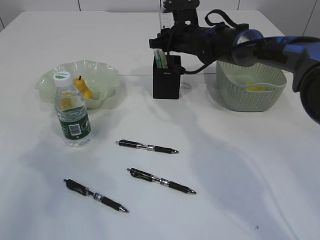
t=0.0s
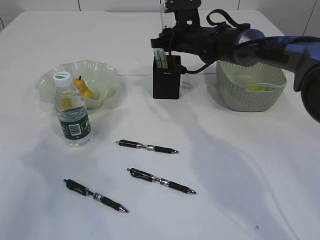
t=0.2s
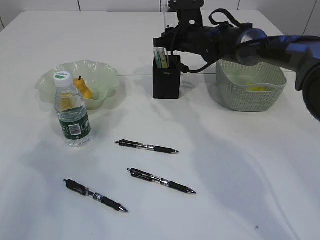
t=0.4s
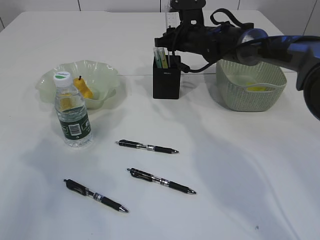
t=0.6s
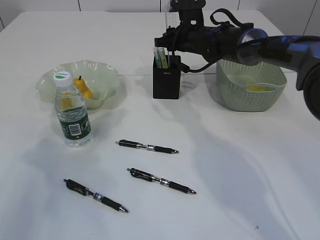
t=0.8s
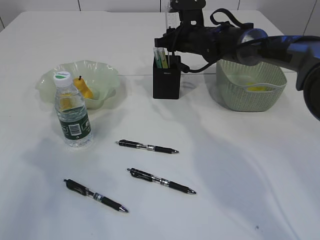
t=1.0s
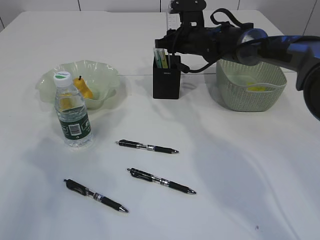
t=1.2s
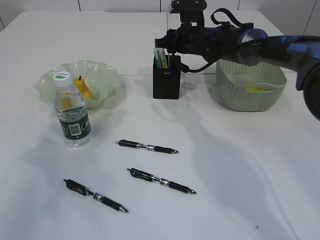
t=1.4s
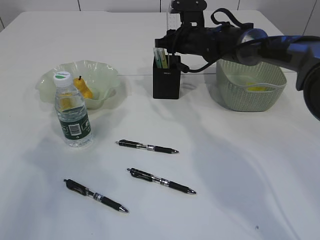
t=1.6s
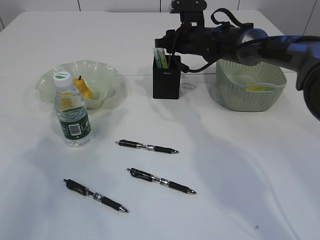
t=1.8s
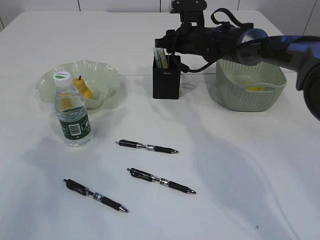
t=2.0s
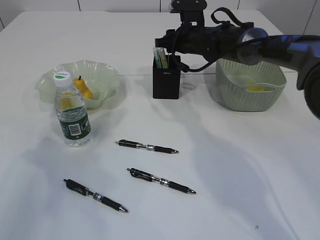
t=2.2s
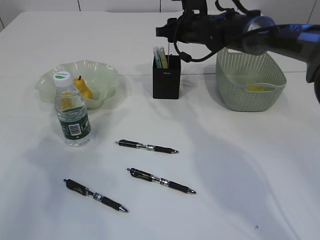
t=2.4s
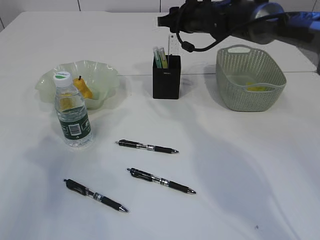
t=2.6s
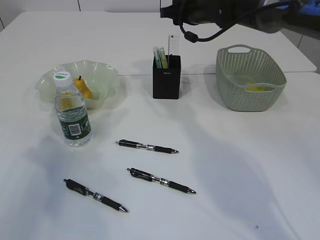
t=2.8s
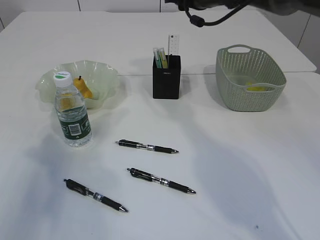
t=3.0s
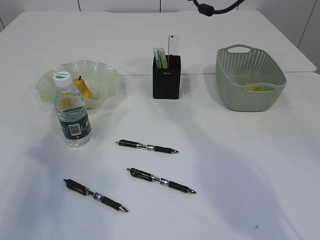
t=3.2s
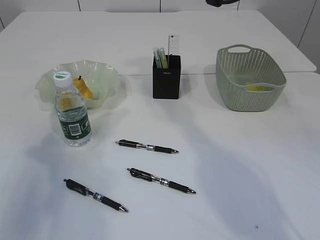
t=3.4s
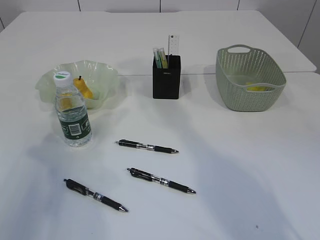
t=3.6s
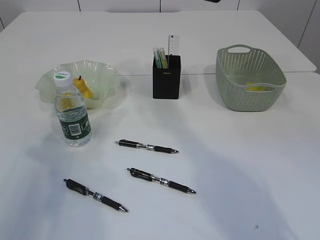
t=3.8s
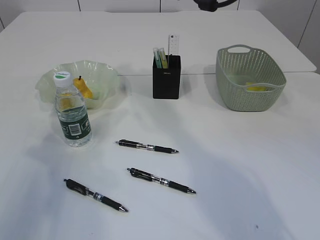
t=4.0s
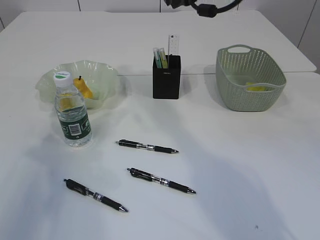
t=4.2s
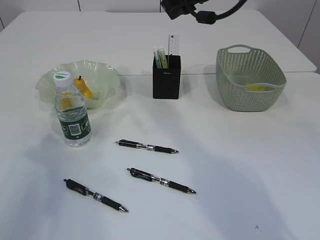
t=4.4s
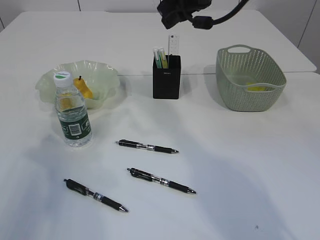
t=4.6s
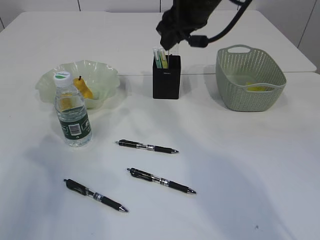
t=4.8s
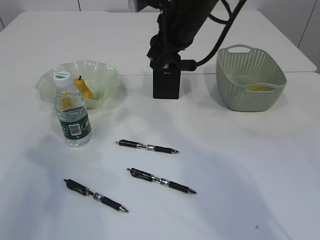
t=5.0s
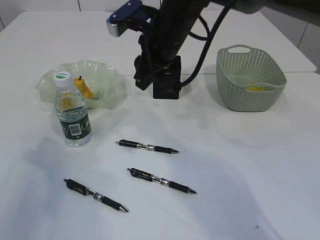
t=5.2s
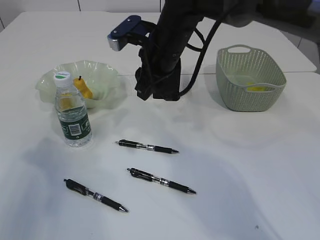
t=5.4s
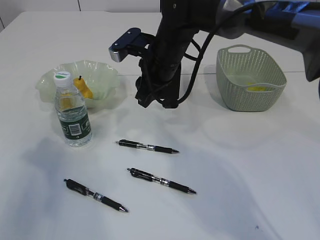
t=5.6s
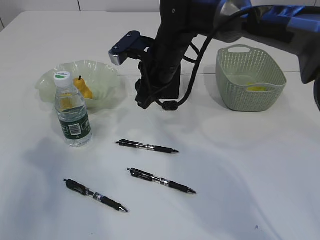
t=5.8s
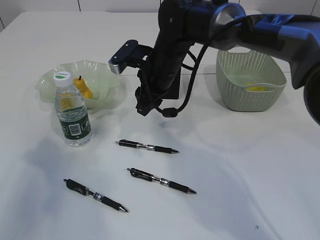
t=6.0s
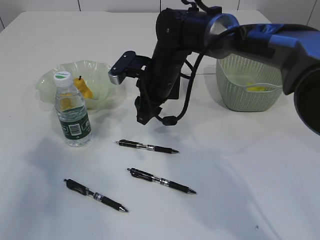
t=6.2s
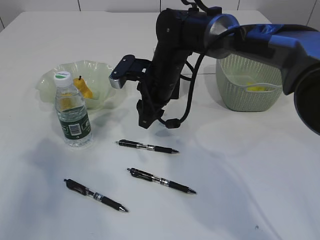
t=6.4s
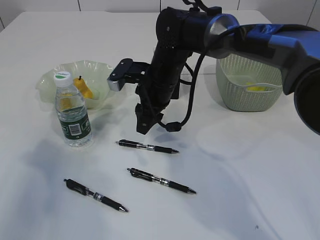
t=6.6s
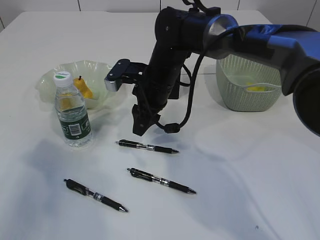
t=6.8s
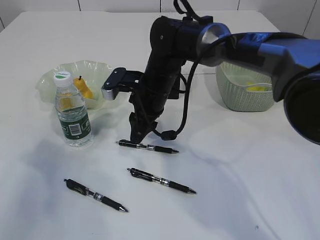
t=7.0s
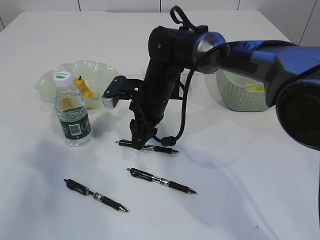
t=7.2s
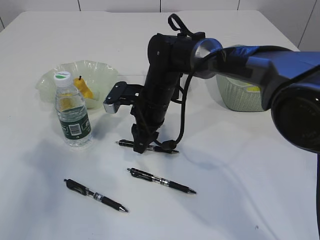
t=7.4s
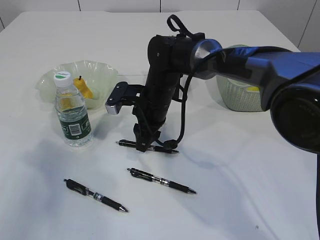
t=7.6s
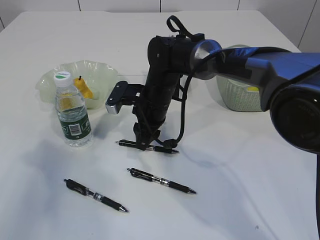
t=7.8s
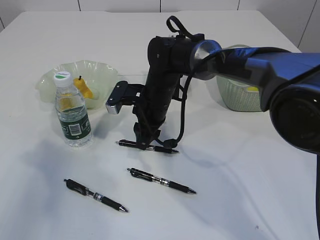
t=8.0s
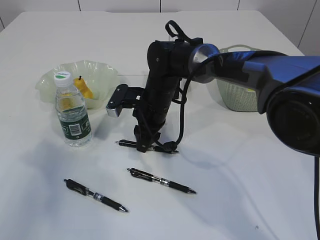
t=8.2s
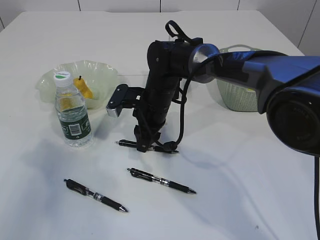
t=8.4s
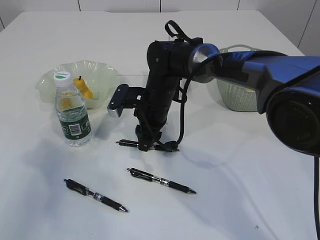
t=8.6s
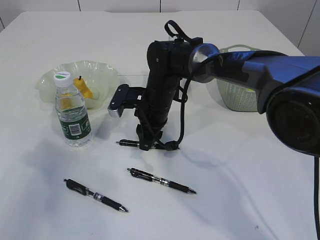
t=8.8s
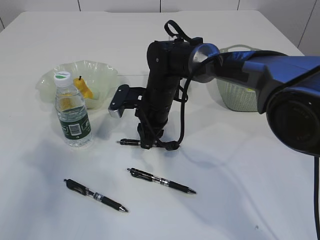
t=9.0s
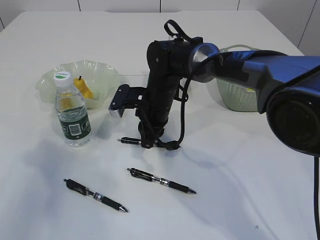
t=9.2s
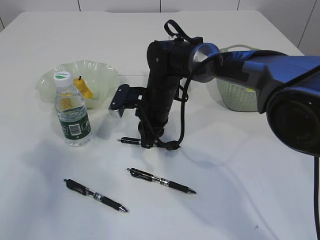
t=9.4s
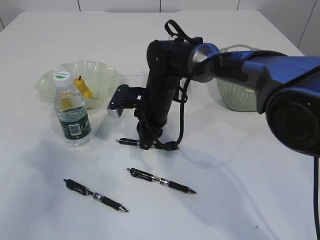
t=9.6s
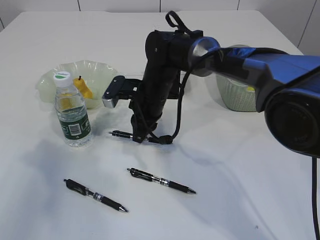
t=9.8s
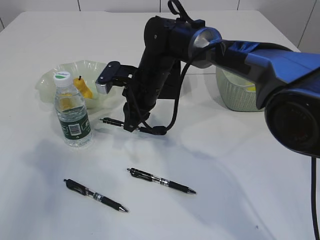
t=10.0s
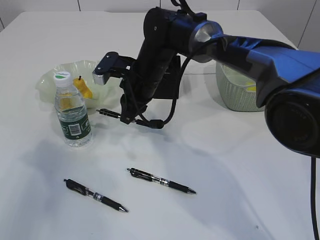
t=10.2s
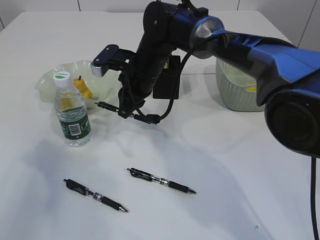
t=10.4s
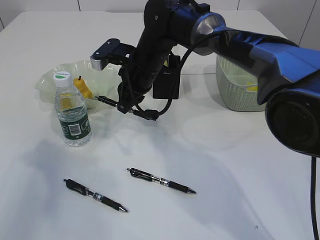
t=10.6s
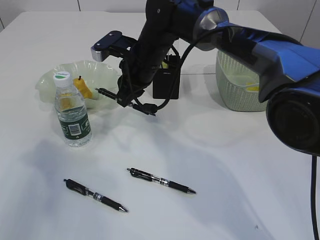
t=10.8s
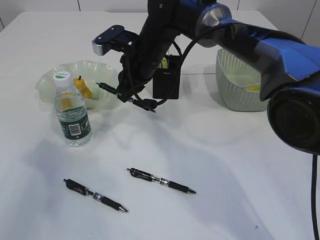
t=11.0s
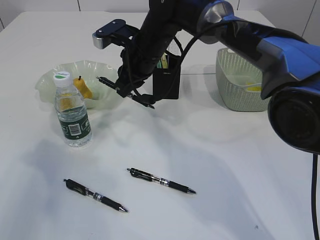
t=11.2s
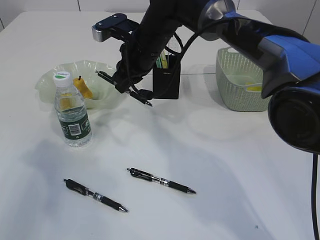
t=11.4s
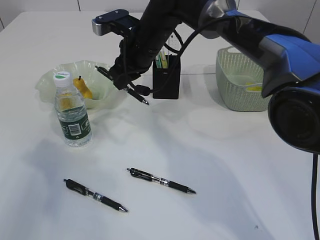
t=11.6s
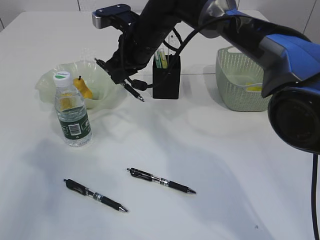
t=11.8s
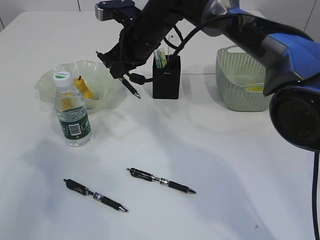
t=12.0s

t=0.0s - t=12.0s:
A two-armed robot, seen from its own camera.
Step, t=0.0s - t=2.6s: Place the ruler into the pen holder.
Step, t=2.8s - t=10.0s: Pick up the pen with right arm.
t=0.0s - t=1.6s: The grippers move only a little.
t=1.6s - t=3.0s: The right gripper goes roughly 10 cm upward.
t=3.0s - t=4.4s: The right gripper goes some 10 cm backward and upward.
t=4.4s - t=6.0s: The right gripper goes about 15 cm downward and to the left.
t=6.0s - t=7.6s: The right gripper heads downward, covering roughly 5 cm.
t=7.6s - t=9.0s: Neither gripper changes place.
t=9.0s - t=10.4s: The right gripper goes approximately 5 cm upward.
t=10.4s - t=12.0s: The right gripper heads upward, covering roughly 5 cm.

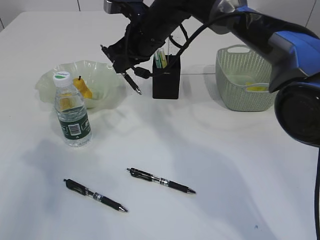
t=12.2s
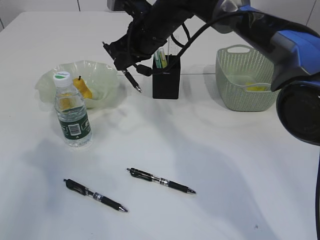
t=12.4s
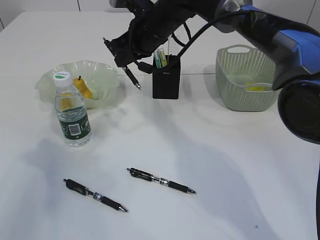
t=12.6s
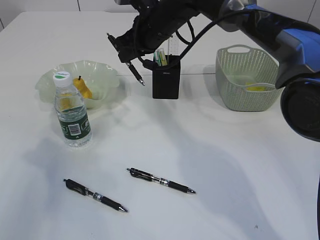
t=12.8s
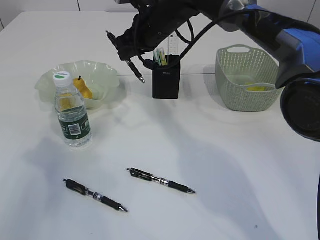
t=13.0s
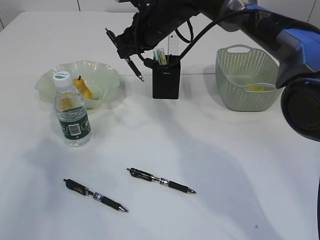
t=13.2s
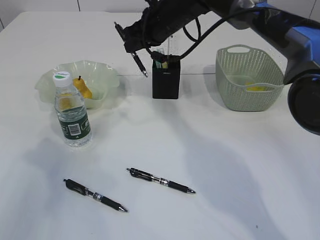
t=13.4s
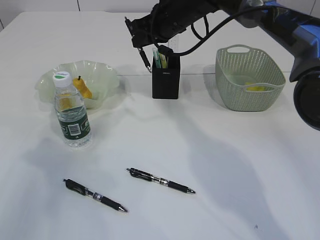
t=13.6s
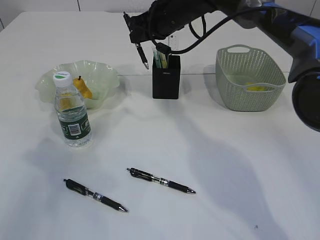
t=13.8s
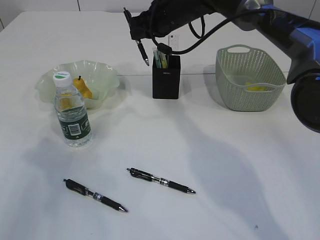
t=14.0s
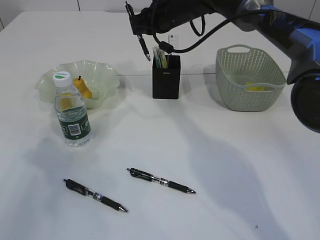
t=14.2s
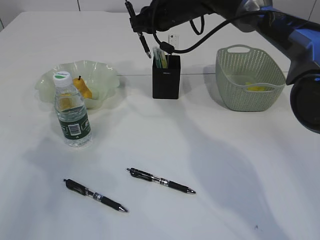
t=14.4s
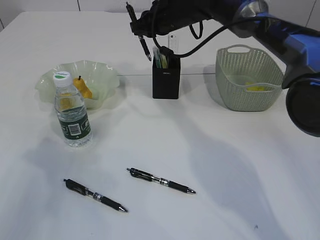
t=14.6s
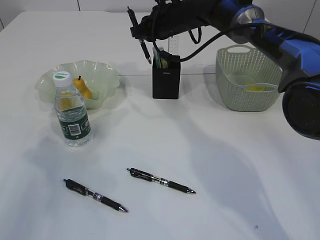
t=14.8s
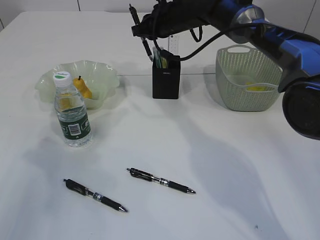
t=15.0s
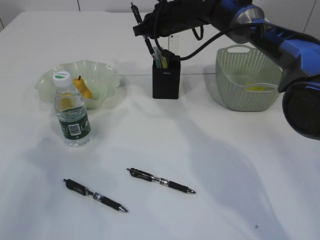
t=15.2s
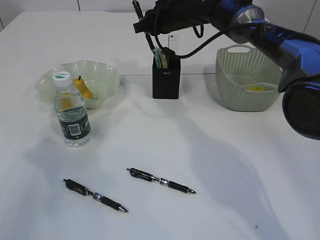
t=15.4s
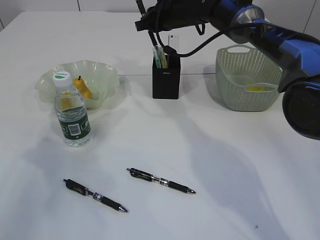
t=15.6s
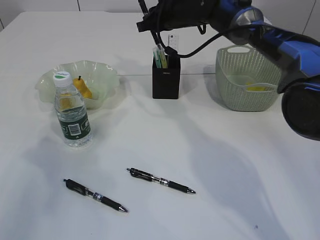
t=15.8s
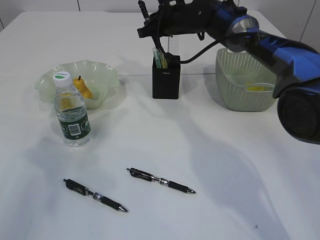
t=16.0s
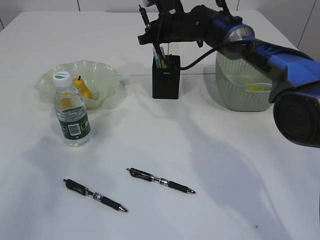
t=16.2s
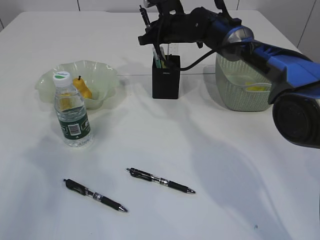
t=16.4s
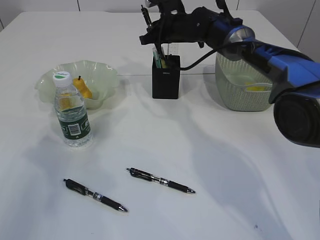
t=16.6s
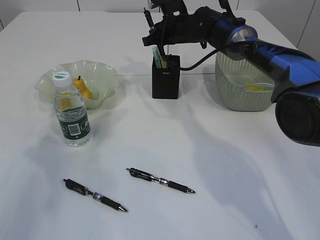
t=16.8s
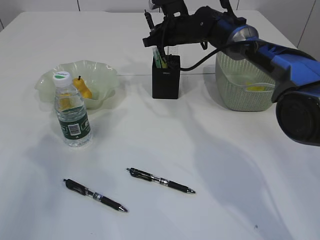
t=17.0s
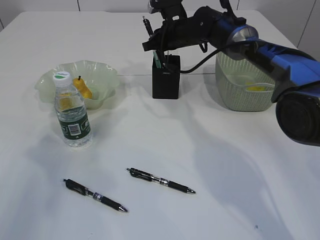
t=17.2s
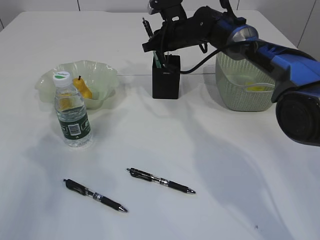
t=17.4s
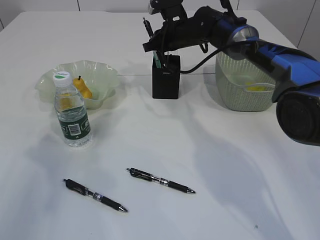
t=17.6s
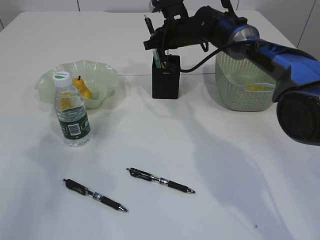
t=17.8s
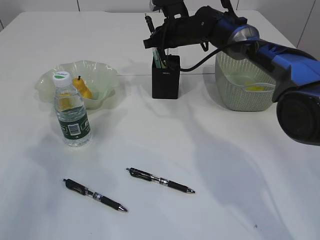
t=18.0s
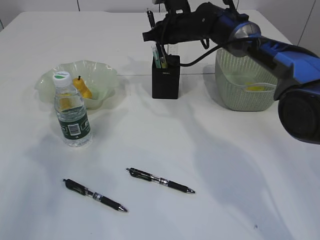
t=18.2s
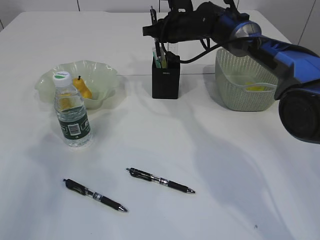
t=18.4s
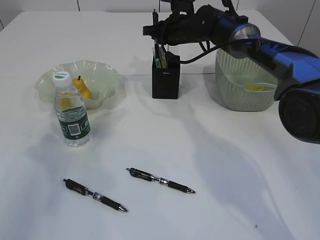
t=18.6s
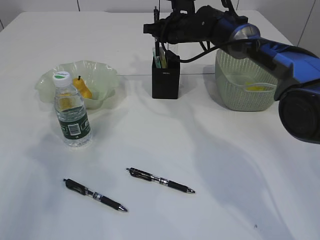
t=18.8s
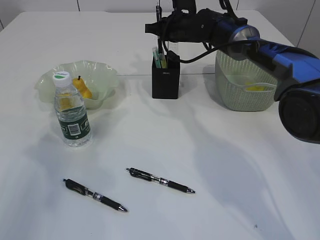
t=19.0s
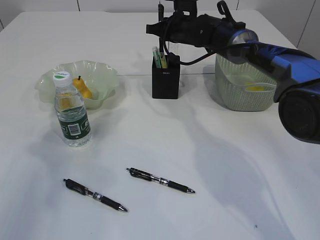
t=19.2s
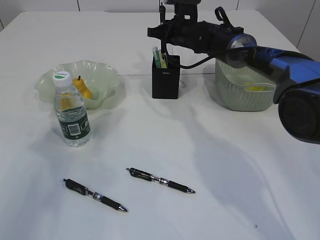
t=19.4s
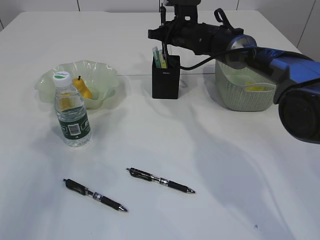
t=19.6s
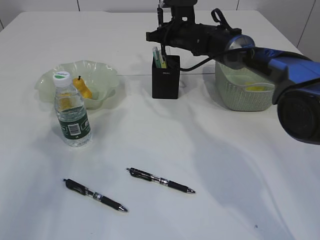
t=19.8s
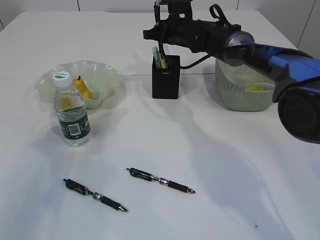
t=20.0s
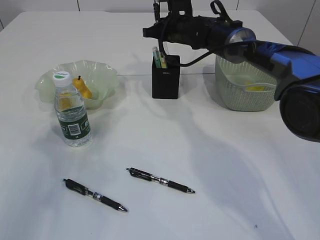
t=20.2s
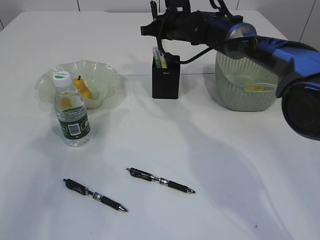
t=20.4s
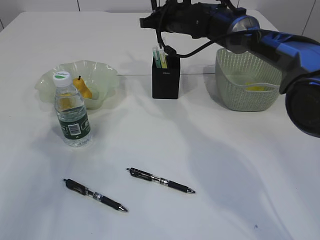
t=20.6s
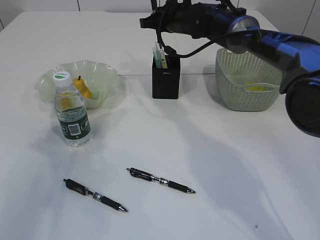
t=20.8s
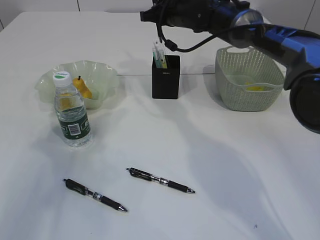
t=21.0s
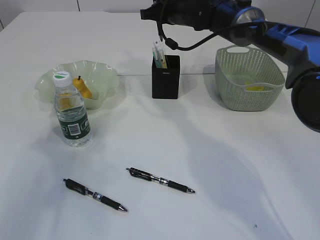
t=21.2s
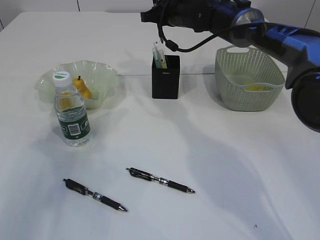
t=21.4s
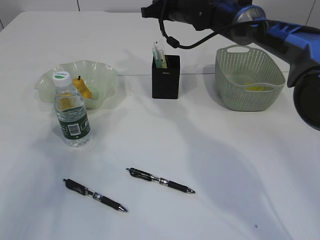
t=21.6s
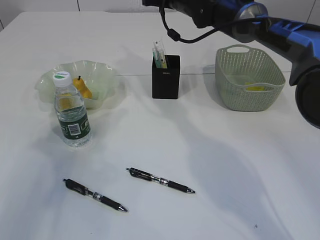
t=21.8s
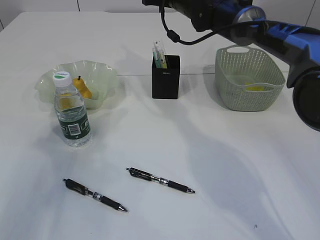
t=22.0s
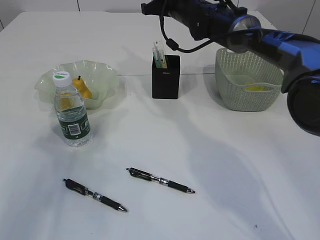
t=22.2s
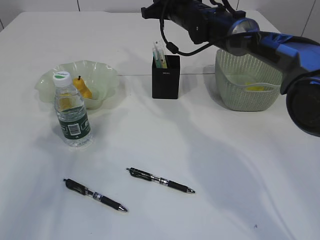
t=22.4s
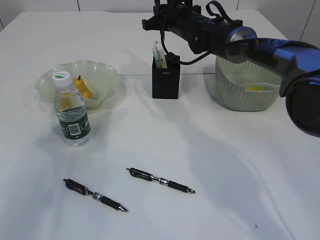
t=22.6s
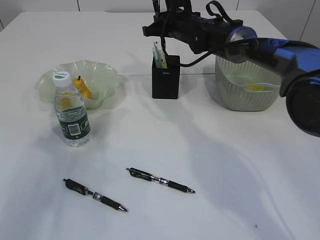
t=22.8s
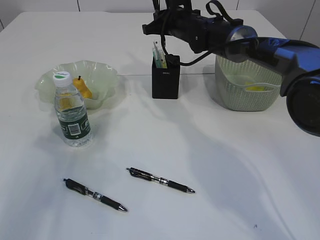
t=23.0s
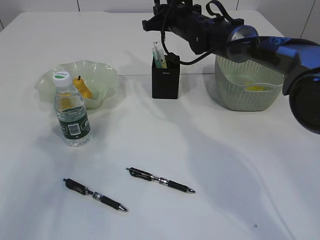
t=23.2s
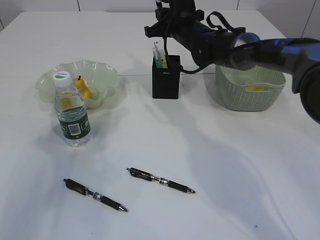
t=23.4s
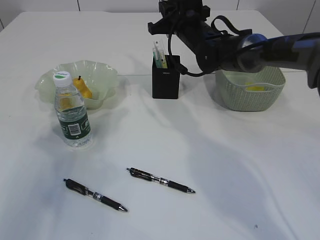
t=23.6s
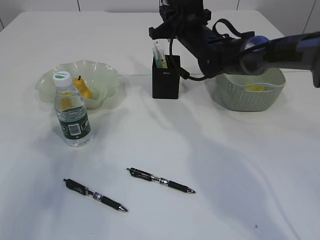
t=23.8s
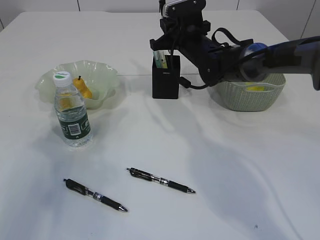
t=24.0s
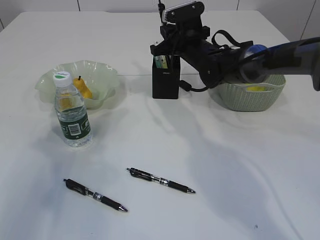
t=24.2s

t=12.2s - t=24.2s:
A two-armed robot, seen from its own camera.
t=12.2s - t=13.8s: The right gripper shifts roughly 5 cm to the right.
t=13.8s - t=15.2s: The grippers make only small movements.
t=15.2s - t=18.2s: The grippers make only small movements.
t=18.2s - t=19.8s: There are only small adjustments of the grippers.
t=19.8s - t=21.2s: The right gripper is displaced upward by approximately 5 cm.
t=21.2s - t=22.6s: The grippers stay close to where they were, moving slightly.
t=22.6s - t=24.2s: The right gripper ends up approximately 5 cm from where it was.
